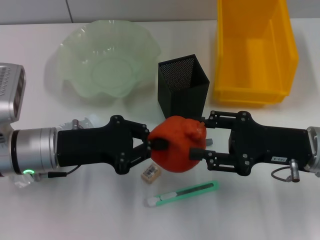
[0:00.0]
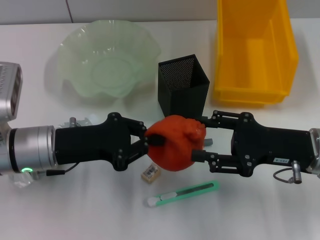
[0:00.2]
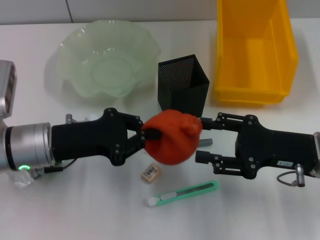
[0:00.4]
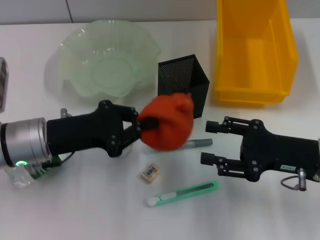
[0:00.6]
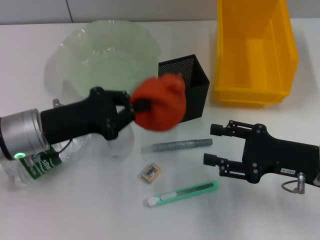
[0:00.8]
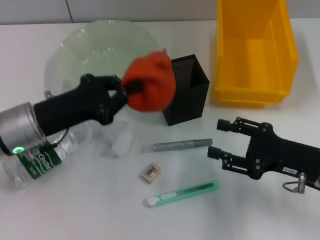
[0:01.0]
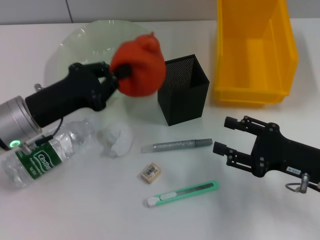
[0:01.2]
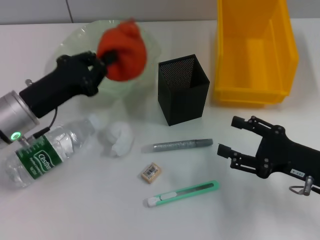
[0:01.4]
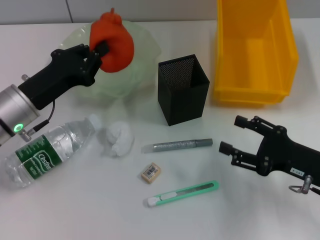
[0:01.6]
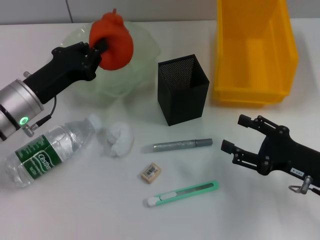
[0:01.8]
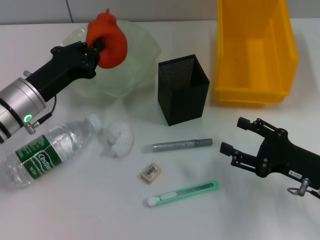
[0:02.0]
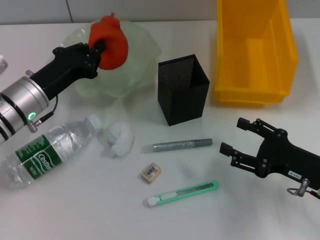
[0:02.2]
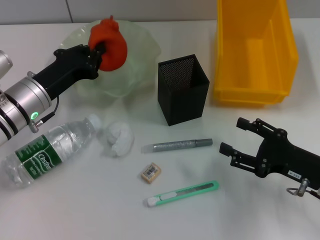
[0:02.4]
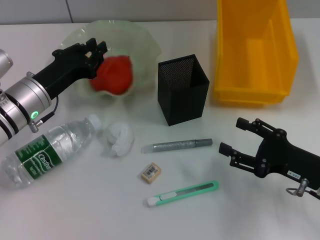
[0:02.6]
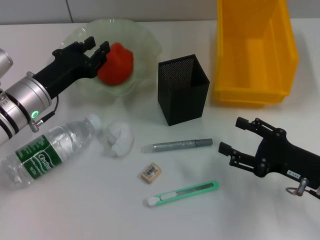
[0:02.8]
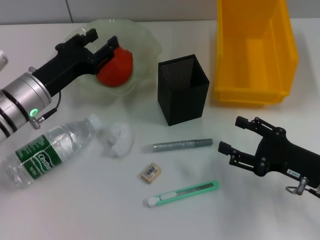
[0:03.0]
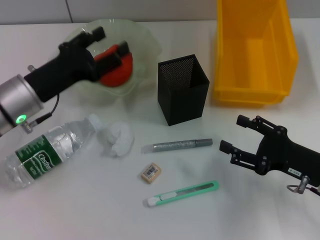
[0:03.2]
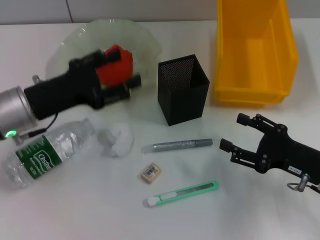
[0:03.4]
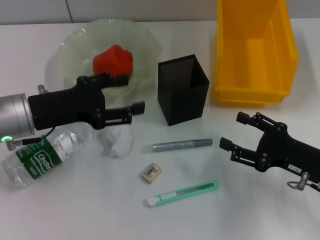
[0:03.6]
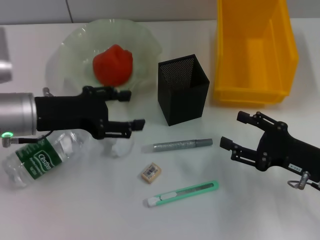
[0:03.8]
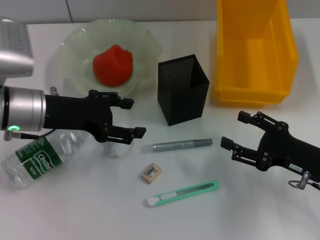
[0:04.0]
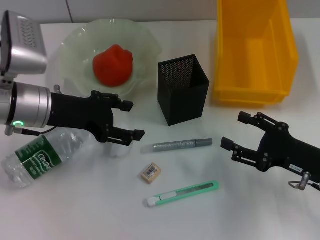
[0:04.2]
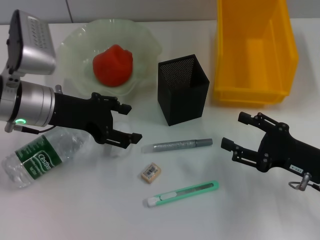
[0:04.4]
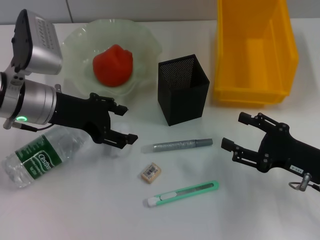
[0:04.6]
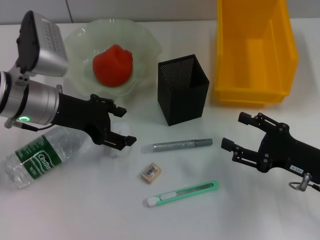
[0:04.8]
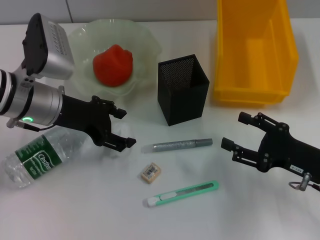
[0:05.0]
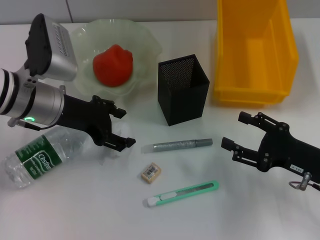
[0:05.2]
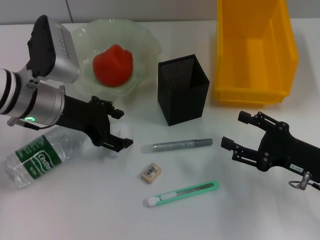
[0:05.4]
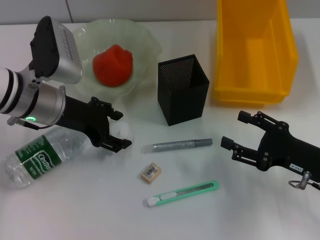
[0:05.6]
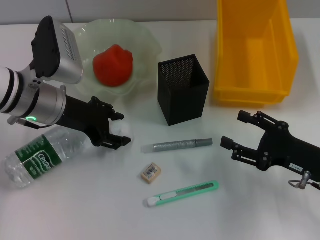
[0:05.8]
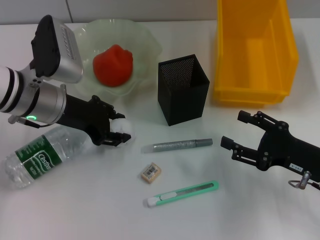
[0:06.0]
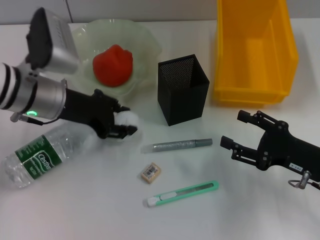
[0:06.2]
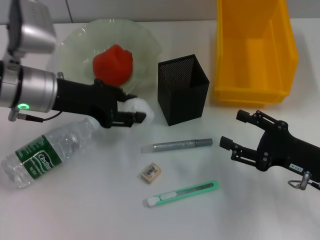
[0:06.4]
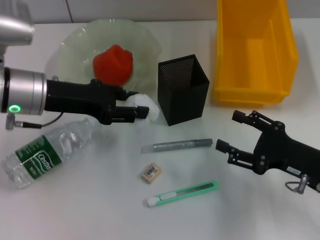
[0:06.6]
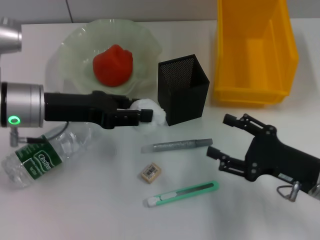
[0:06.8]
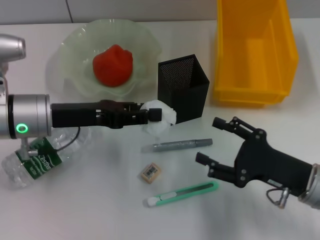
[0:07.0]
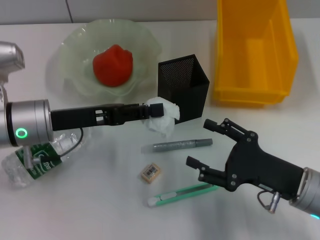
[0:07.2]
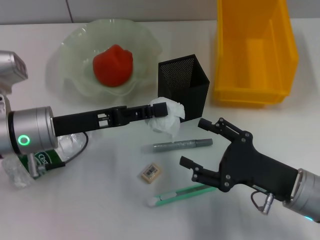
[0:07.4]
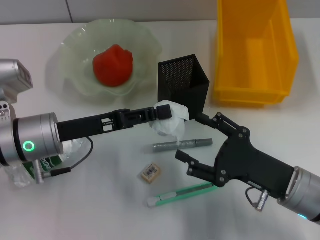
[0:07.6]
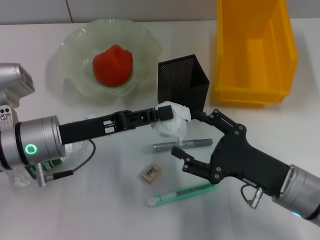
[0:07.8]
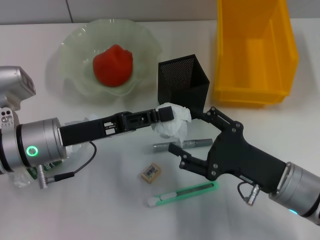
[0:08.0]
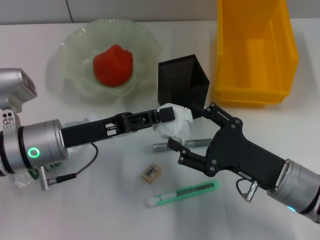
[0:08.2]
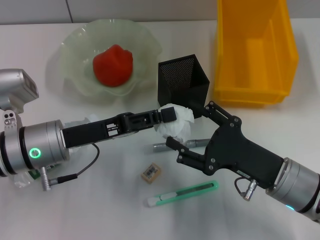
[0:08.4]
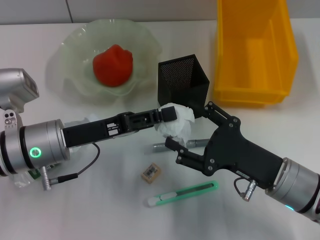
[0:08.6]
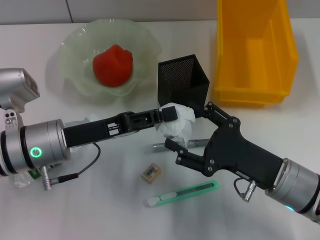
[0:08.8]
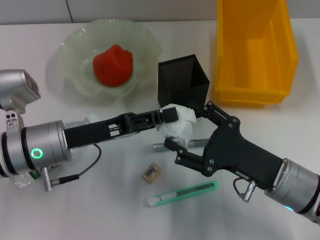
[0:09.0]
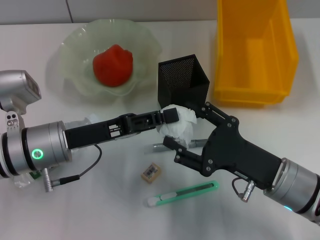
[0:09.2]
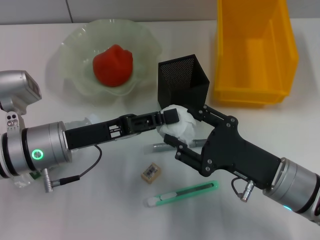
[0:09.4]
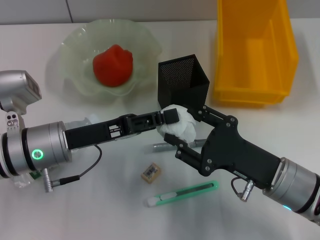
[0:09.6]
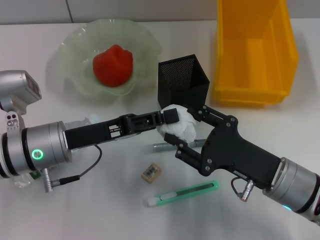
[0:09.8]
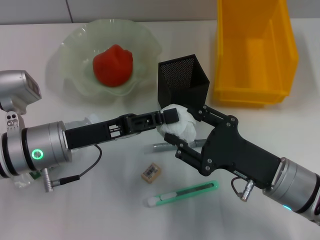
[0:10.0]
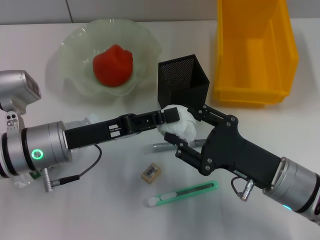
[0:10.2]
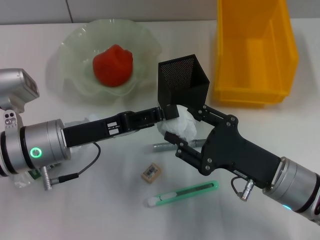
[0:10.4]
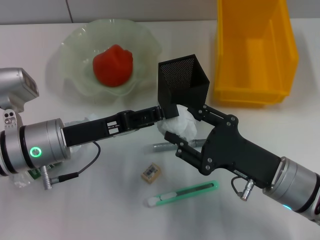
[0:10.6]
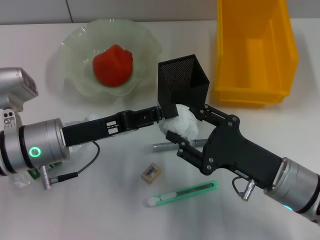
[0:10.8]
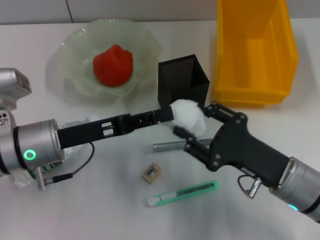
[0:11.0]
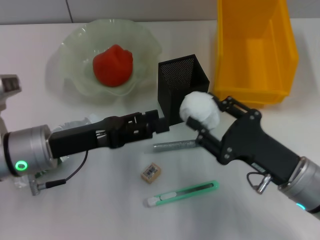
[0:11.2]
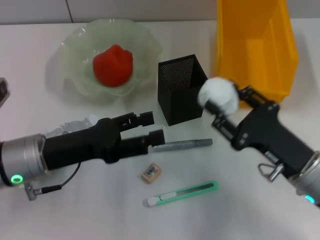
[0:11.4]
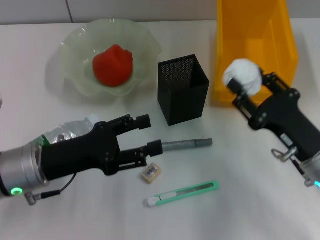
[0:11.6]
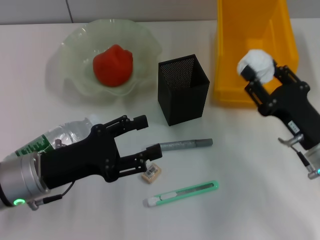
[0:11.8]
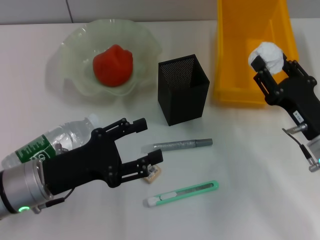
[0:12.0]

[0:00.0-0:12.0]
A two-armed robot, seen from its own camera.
Step, 0:00.6 to 0:02.6: Place the orange into the fruit bowl with the left hand.
Step, 0:02.8 to 0:05.8: Grab the paper ball with the left hand.
Step, 0:06.0 to 0:11.0: Pass the paper ball from the left hand to the right hand.
0:00.0 to 0:01.6: The right gripper ends up approximately 5 cm from where it was, and opens its fingers.
0:01.6 to 0:03.0: The left gripper opens.
0:03.0 to 0:04.4: The left gripper moves upward, some 5 cm, and opens its fingers.
0:04.4 to 0:06.0: There are only small adjustments of the grippers.
0:06.0 to 0:07.6: The left gripper goes about 5 cm backward. The right gripper shifts roughly 5 cm to the left.
0:07.6 to 0:09.0: There are only small adjustments of the grippers.
0:09.0 to 0:10.4: Neither gripper changes place.
0:10.4 to 0:12.0: The right gripper heads to the right, covering approximately 5 cm. The left gripper moves backward, about 5 cm.

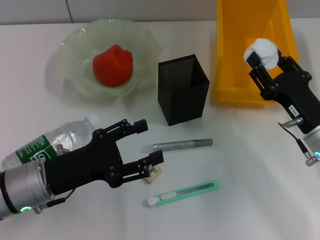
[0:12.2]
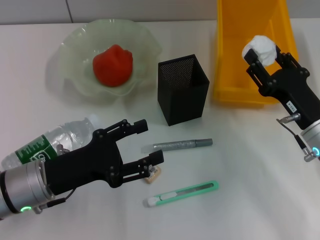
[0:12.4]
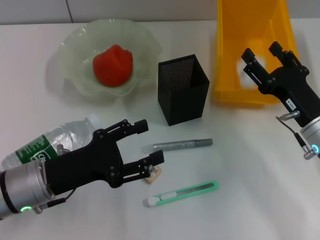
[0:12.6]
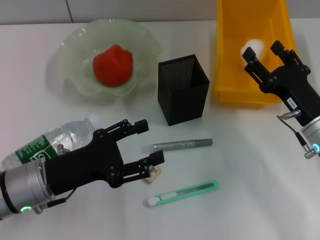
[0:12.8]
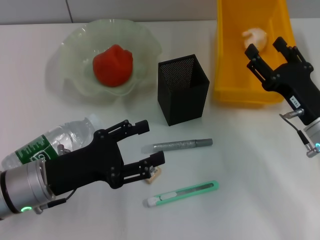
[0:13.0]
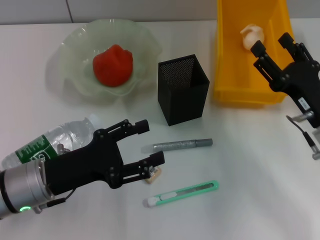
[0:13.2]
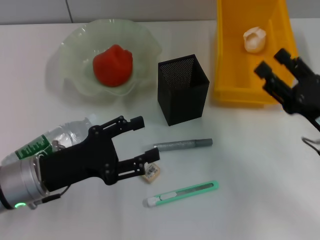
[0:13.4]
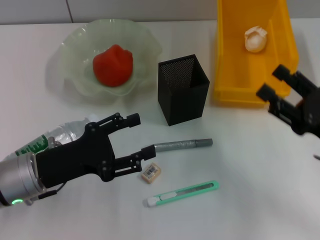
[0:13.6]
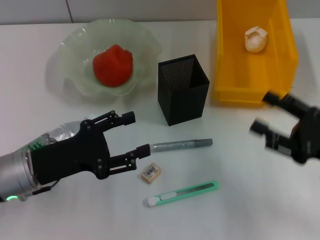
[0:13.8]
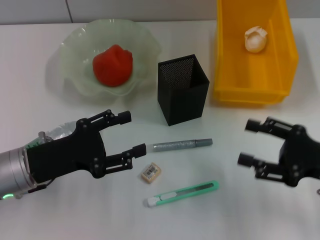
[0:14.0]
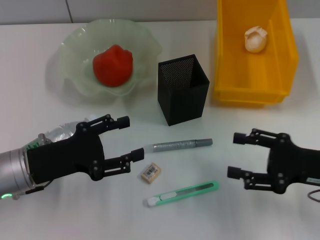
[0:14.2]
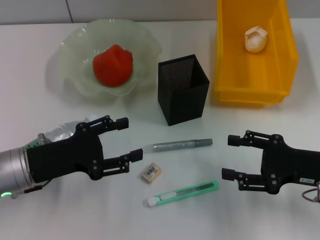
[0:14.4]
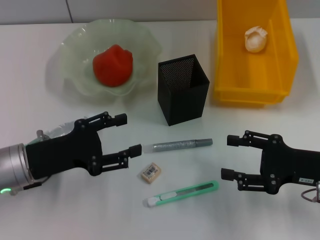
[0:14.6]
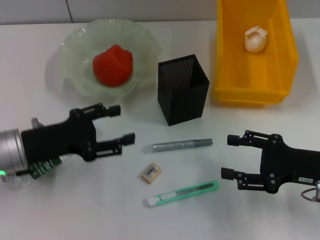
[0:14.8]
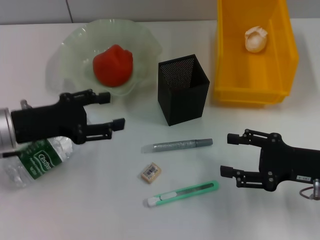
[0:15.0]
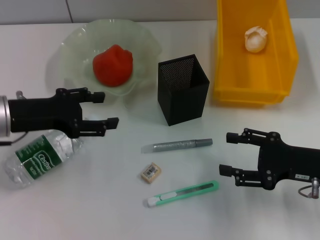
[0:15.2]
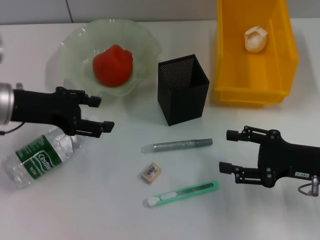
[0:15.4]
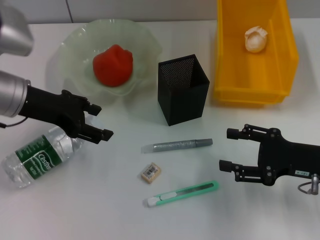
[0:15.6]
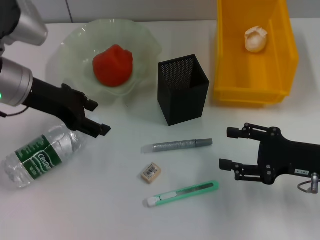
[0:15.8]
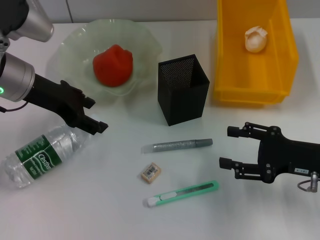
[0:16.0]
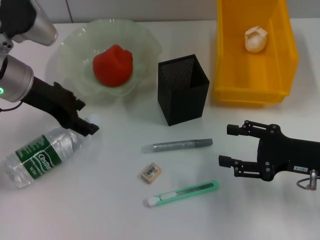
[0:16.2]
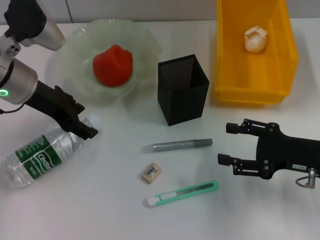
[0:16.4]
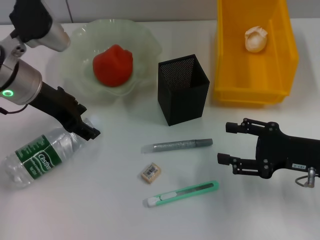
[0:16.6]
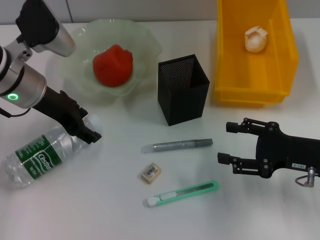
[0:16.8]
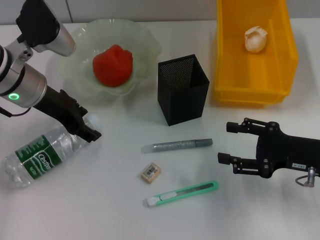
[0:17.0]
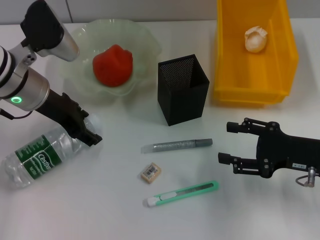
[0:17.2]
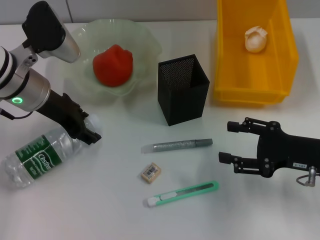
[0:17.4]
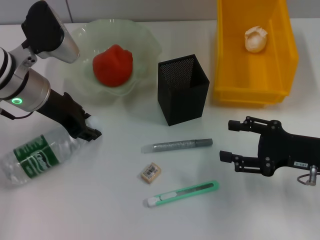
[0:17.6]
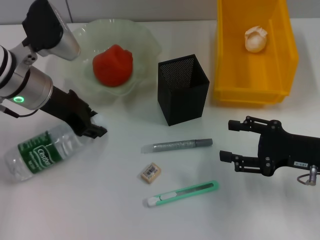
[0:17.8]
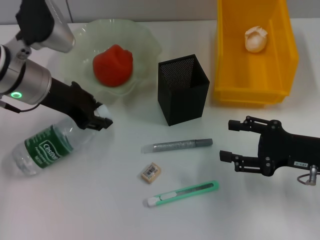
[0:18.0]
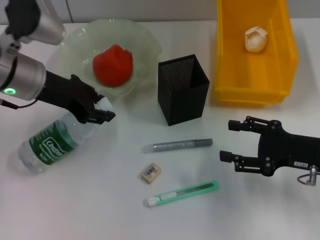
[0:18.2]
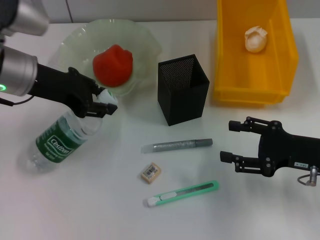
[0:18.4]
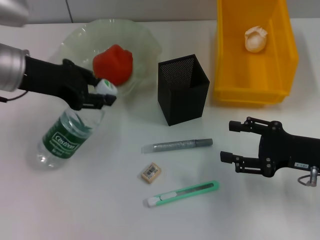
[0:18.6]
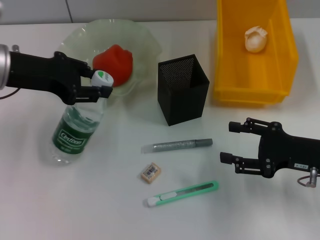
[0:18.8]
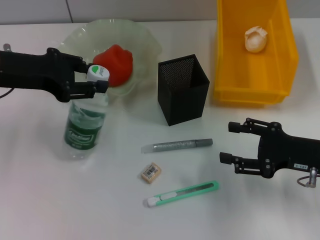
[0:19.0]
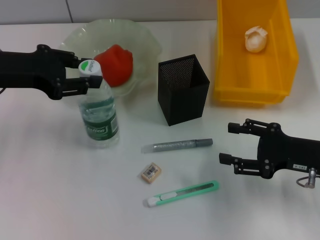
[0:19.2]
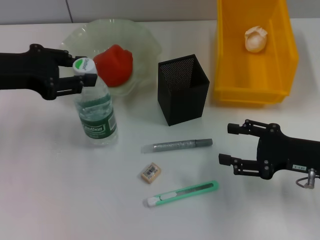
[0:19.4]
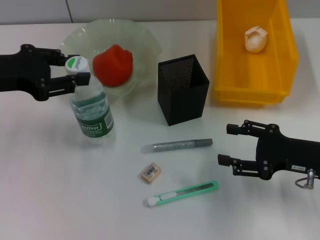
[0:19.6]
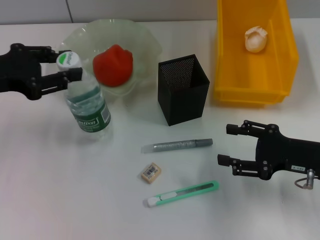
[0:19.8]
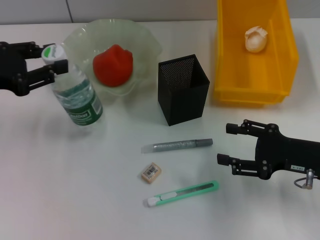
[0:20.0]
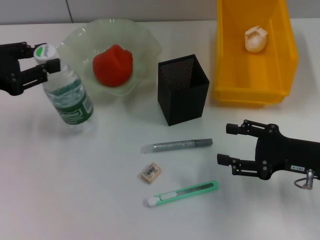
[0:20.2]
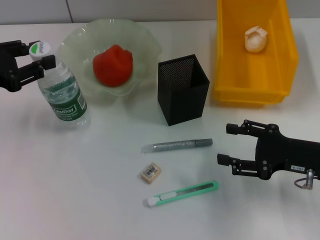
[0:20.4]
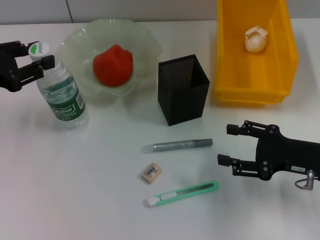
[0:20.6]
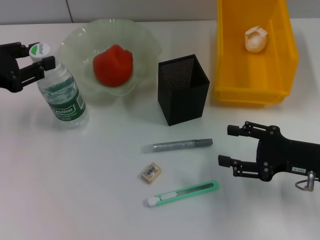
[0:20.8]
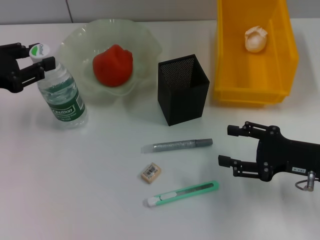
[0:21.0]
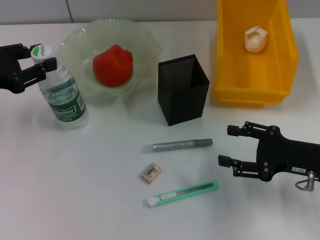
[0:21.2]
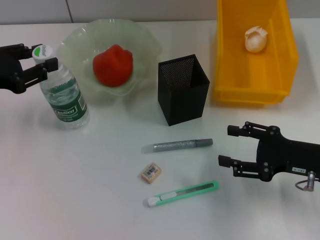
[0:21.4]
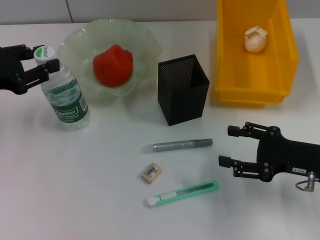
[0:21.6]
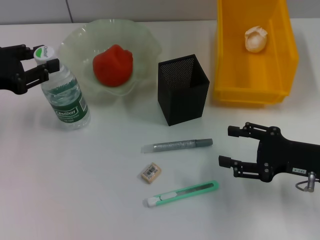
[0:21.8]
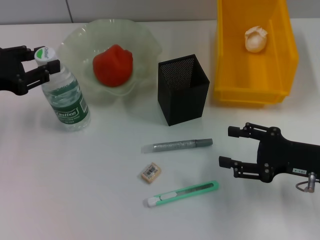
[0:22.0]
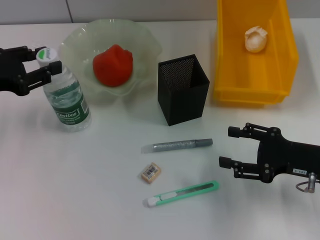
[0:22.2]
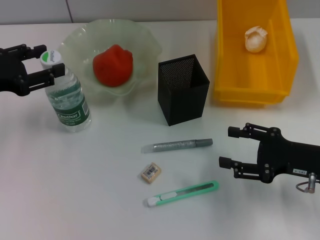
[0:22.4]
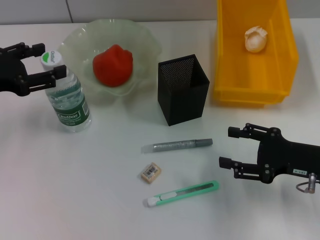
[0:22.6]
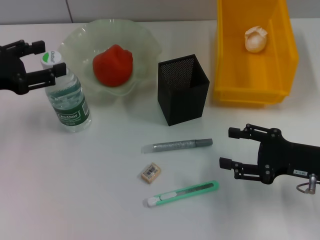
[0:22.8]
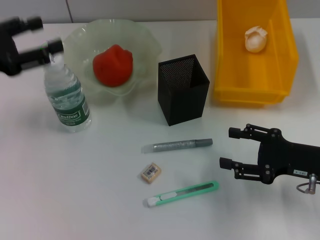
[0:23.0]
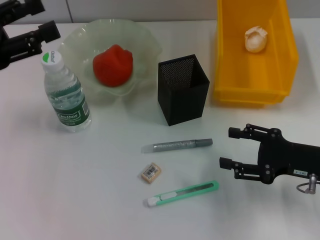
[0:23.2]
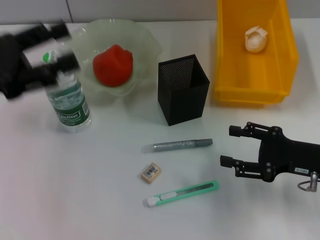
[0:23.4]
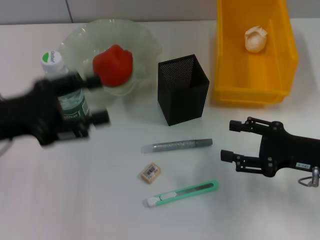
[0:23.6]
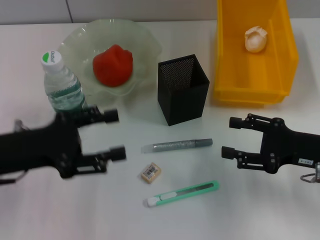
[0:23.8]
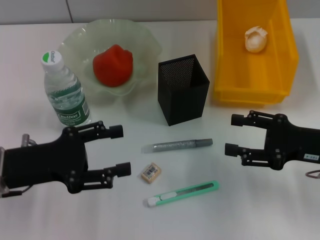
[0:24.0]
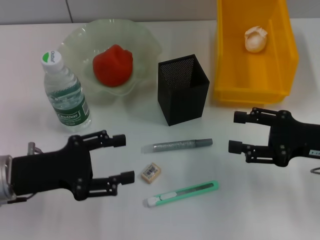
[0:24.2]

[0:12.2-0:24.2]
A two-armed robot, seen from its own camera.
Step, 0:13.0 to 0:17.8: Grab the water bottle with the left hand.
Step, 0:18.0 to 0:22.4: Place the water bottle on the table with the left hand.
0:12.2 to 0:13.8: The right gripper heads to the right, covering about 5 cm.
0:13.8 to 0:15.2: The left gripper travels forward and upward by approximately 10 cm.
0:15.2 to 0:16.6: The left gripper goes approximately 5 cm forward.
0:16.6 to 0:18.2: The left gripper closes up.
0:18.2 to 0:19.8: The left gripper shifts approximately 10 cm to the left and backward.
0:19.8 to 0:21.2: The grippers make only small movements.
0:21.2 to 0:22.6: Neither gripper changes place.
0:22.6 to 0:24.2: The left gripper goes about 10 cm backward, downward and to the right.
